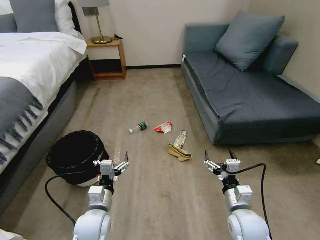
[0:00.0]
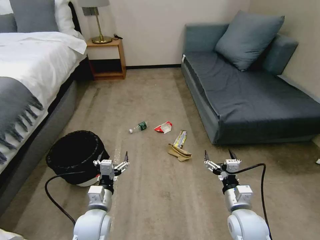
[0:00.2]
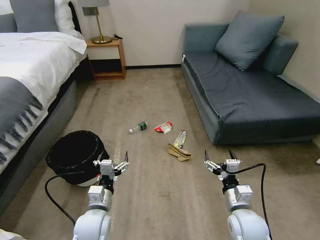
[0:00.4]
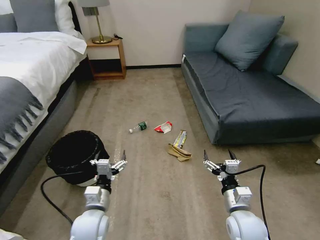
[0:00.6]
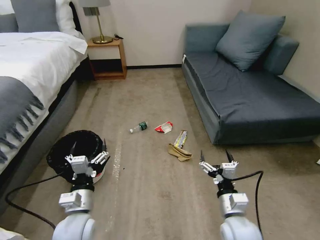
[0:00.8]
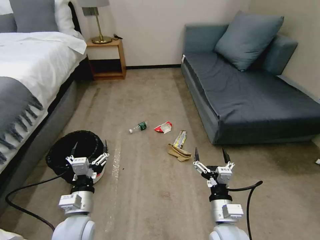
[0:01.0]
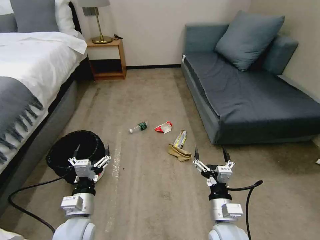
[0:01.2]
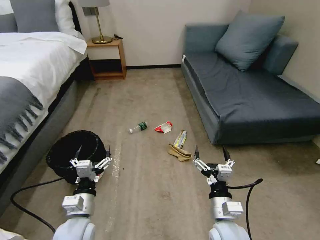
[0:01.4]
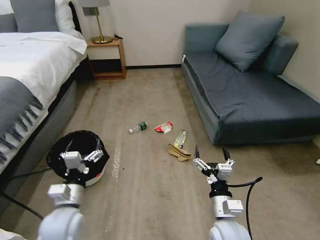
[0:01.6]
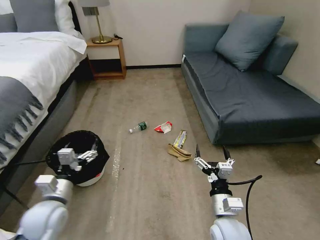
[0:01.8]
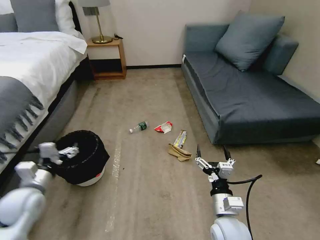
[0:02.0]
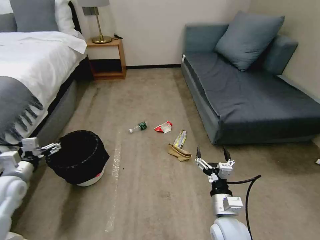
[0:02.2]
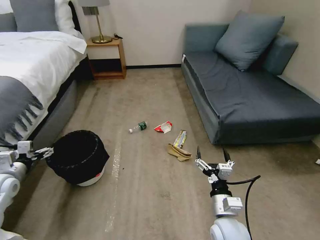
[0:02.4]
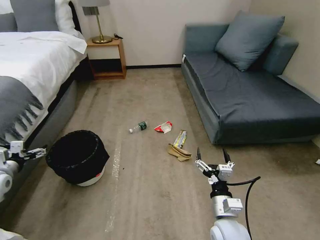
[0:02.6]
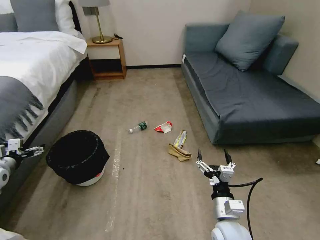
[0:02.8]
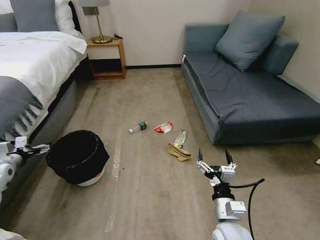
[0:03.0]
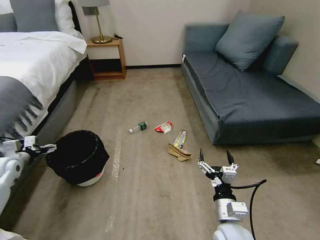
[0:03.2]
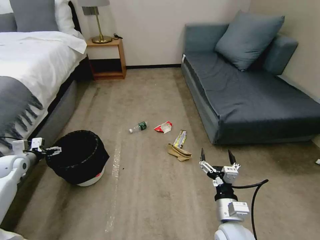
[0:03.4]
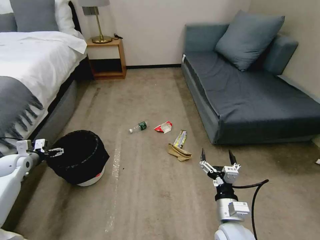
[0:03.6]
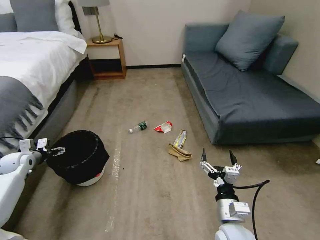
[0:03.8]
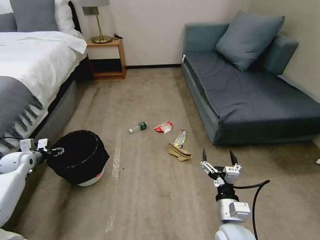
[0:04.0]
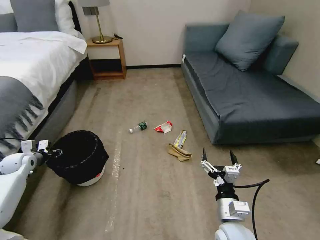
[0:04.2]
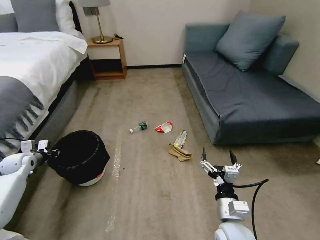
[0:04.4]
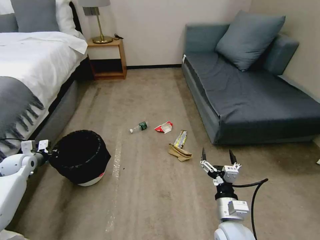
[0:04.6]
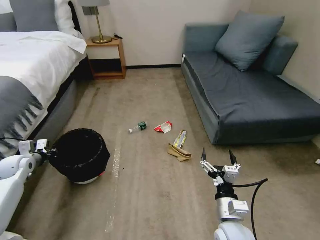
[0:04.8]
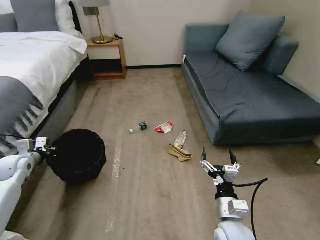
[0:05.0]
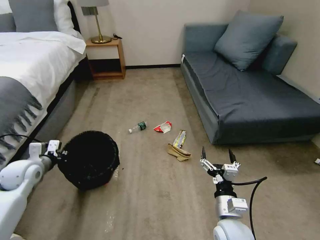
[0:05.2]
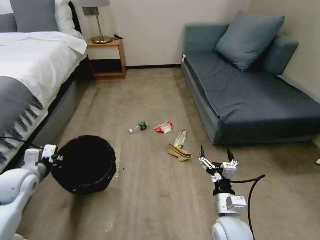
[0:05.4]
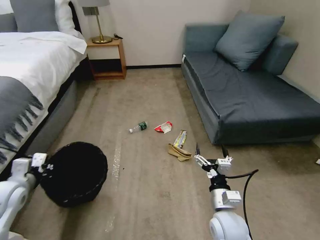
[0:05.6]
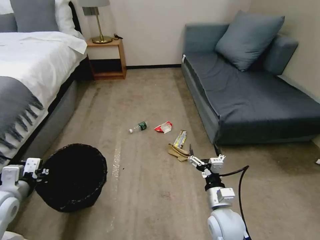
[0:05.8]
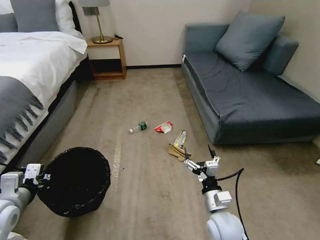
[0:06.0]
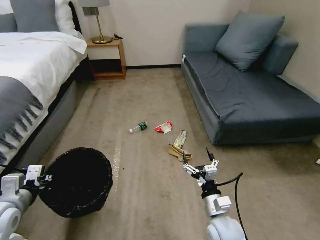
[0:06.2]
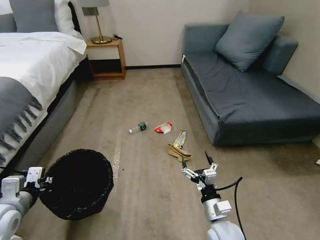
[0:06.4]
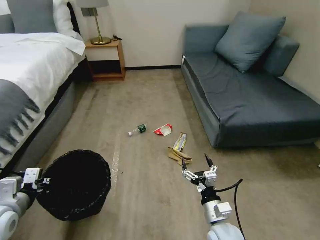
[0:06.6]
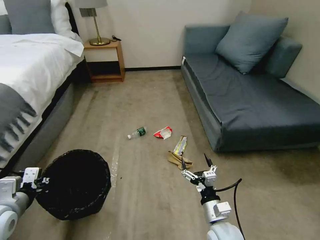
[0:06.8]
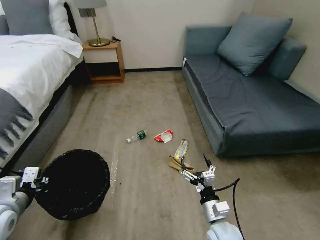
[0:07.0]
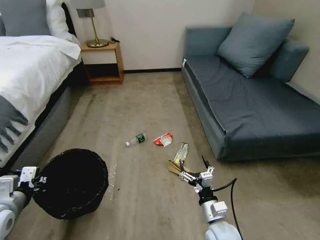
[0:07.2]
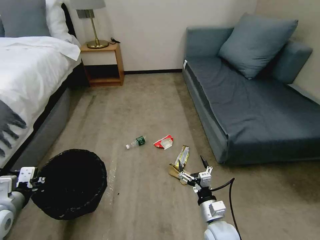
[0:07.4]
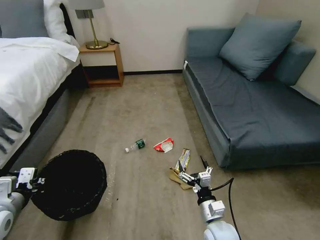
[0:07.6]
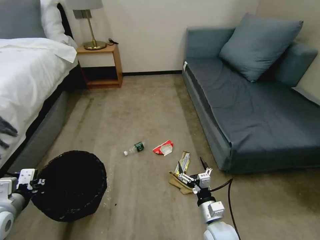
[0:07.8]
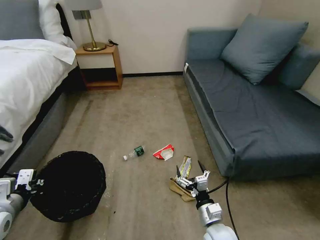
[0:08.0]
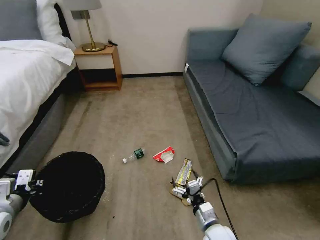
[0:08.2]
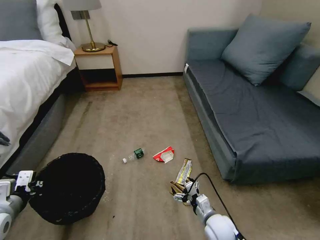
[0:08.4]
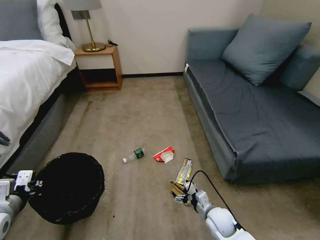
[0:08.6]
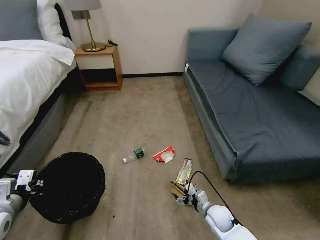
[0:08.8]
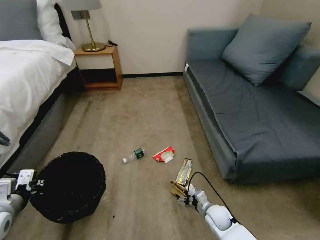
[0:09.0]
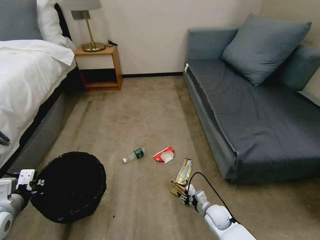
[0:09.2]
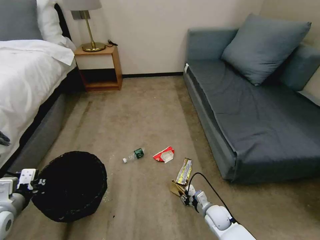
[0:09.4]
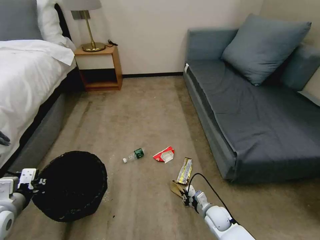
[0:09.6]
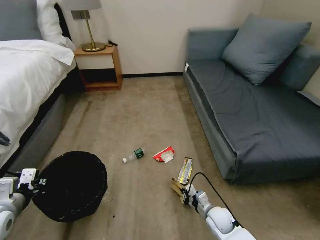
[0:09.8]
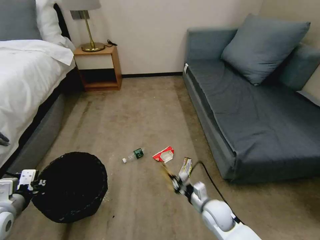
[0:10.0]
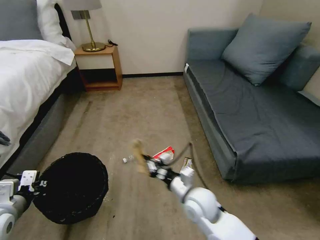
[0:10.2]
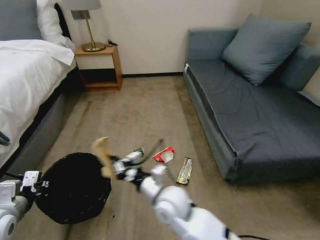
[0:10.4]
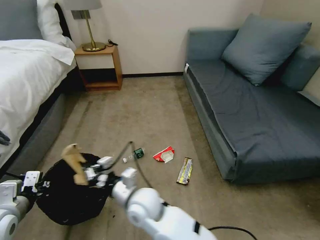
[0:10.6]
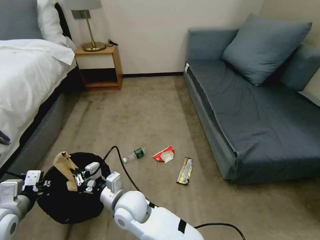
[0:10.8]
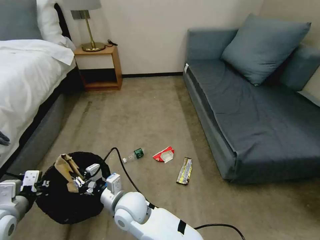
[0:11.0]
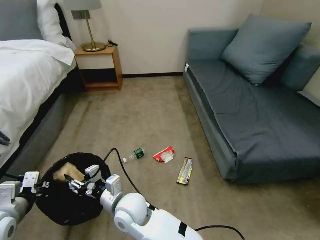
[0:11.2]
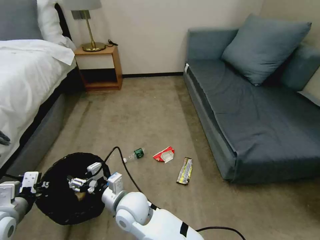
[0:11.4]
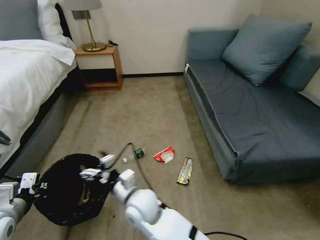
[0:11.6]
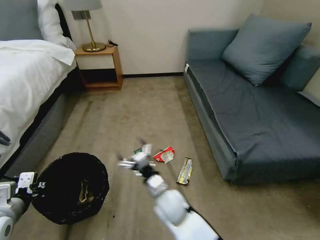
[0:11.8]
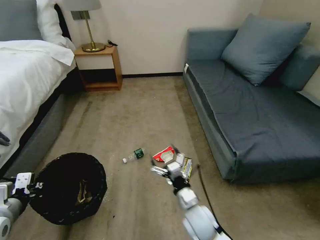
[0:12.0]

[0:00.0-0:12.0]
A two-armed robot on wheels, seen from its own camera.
Task of the whole recording: Pick up the trash bin, then pick up the garbage on the floor and place it into the trash bin.
0:01.6 to 0:03.0: The left gripper goes some 30 cm to the left and forward.
0:03.0 to 0:04.4: The left gripper goes roughly 5 cm forward, and closes up.
0:04.4 to 0:06.0: The left gripper shifts some 25 cm backward, to the right and upward.
0:07.6 to 0:09.0: The right gripper goes approximately 15 cm downward and forward.
0:09.0 to 0:10.4: The right gripper goes about 30 cm upward and to the left, and closes its fingers.
0:10.4 to 0:12.0: The right gripper travels to the right and downward by about 15 cm, and opens.

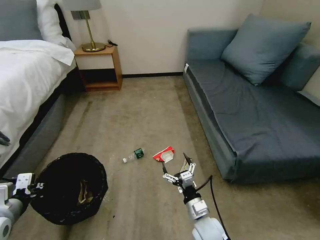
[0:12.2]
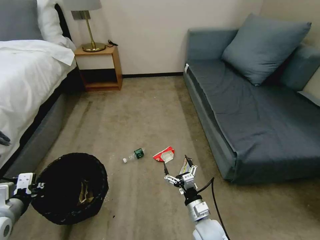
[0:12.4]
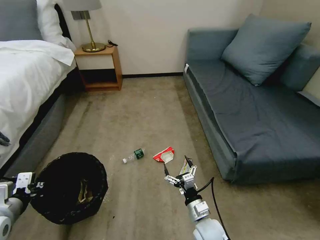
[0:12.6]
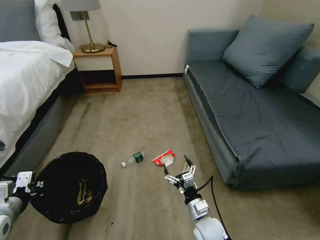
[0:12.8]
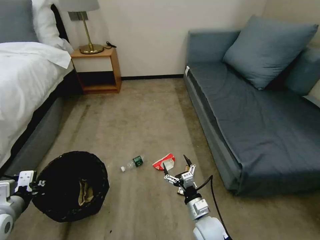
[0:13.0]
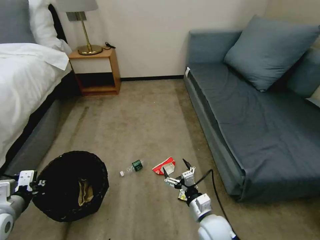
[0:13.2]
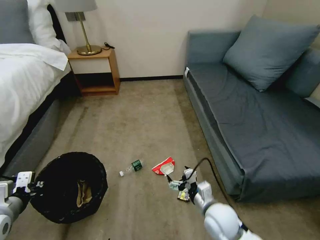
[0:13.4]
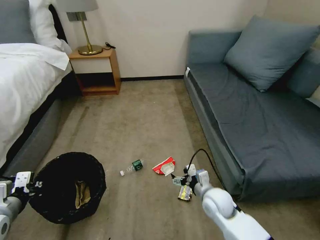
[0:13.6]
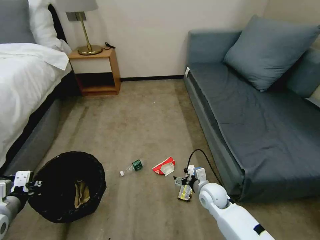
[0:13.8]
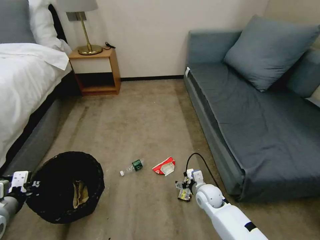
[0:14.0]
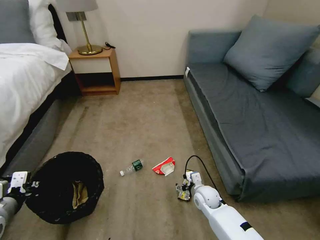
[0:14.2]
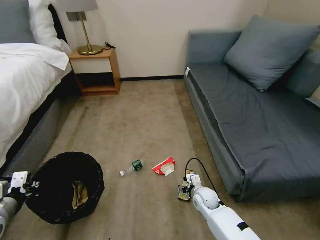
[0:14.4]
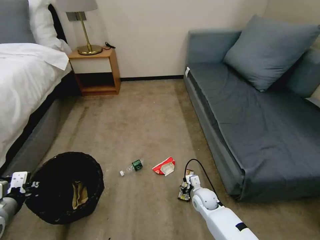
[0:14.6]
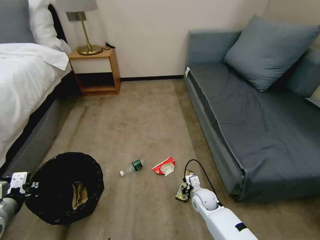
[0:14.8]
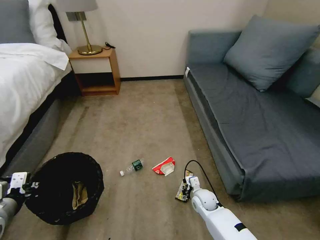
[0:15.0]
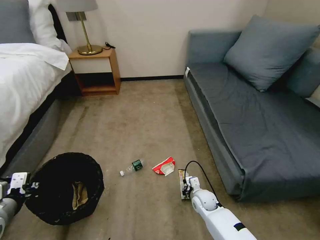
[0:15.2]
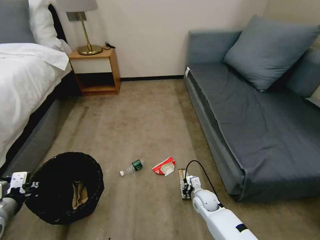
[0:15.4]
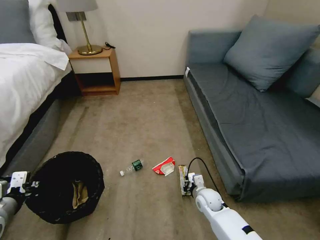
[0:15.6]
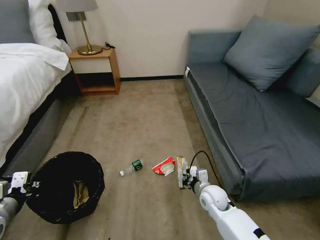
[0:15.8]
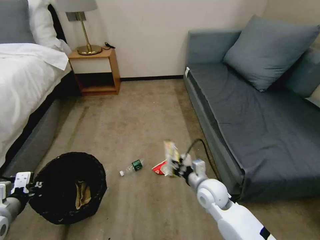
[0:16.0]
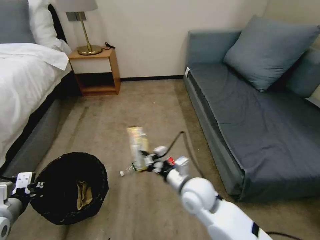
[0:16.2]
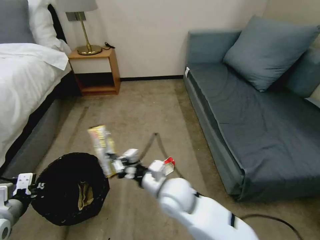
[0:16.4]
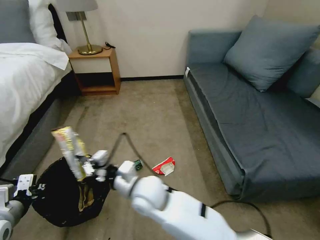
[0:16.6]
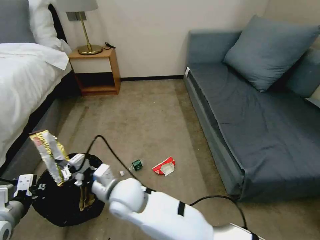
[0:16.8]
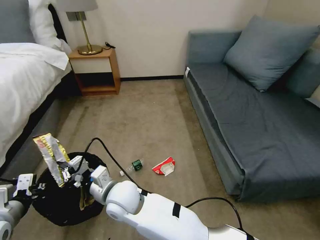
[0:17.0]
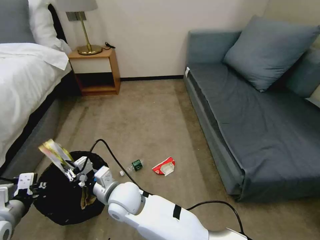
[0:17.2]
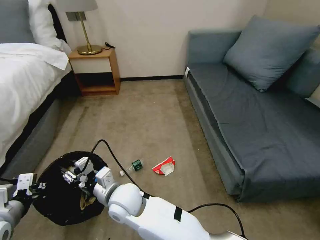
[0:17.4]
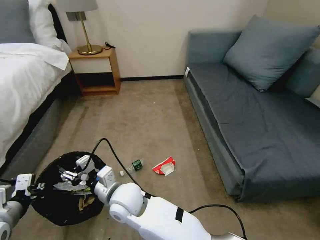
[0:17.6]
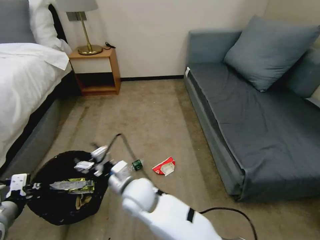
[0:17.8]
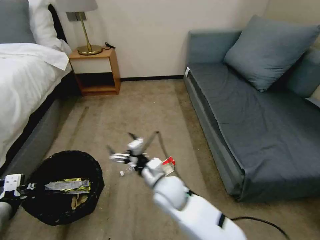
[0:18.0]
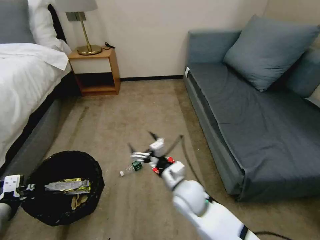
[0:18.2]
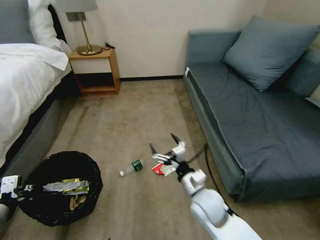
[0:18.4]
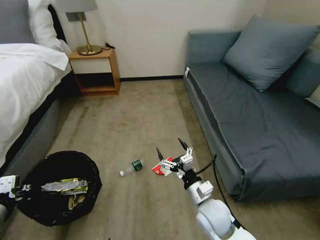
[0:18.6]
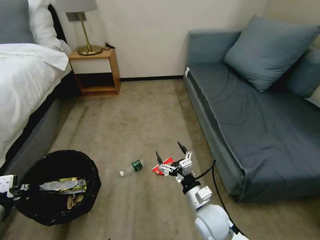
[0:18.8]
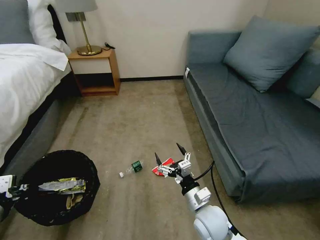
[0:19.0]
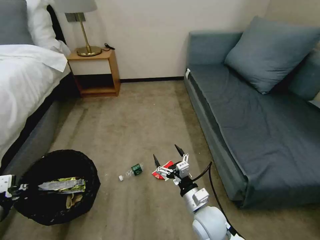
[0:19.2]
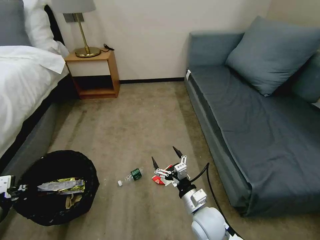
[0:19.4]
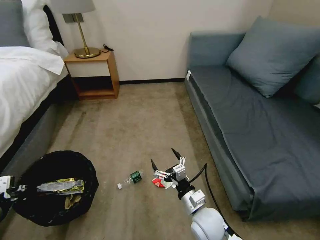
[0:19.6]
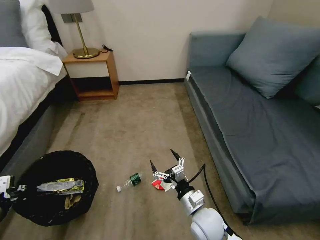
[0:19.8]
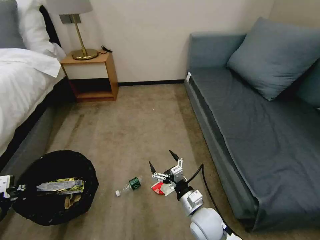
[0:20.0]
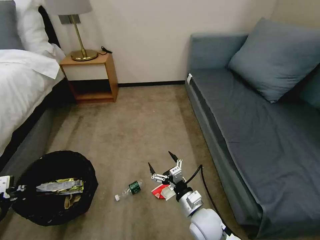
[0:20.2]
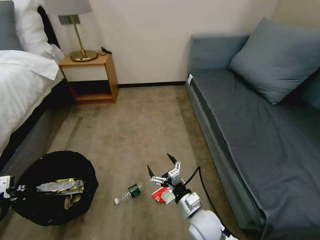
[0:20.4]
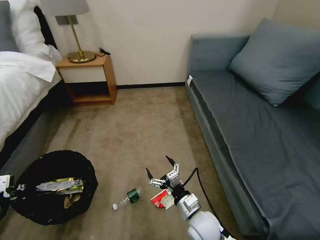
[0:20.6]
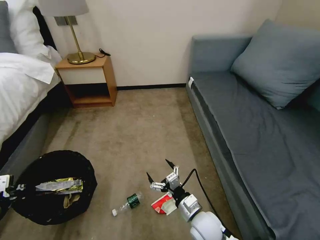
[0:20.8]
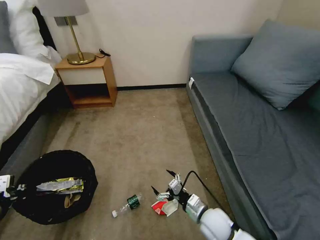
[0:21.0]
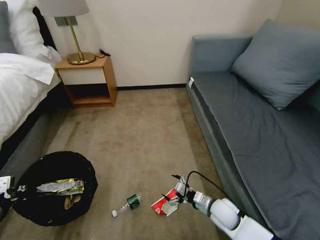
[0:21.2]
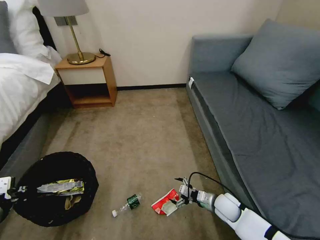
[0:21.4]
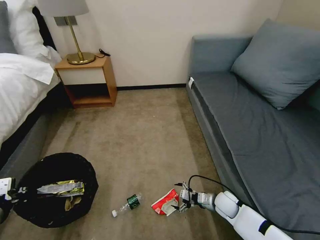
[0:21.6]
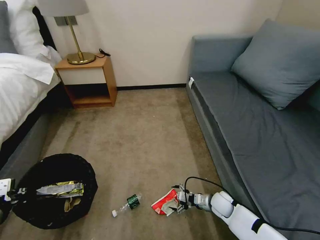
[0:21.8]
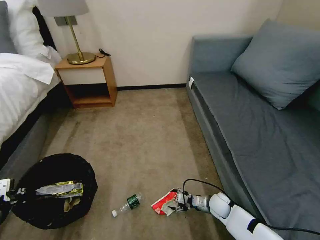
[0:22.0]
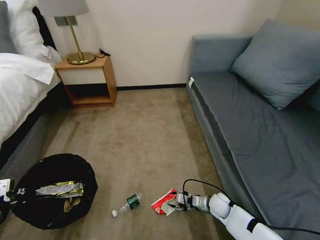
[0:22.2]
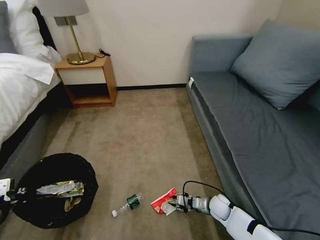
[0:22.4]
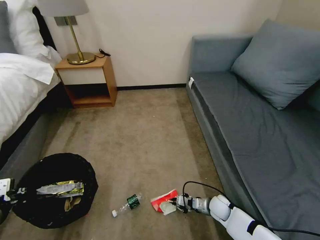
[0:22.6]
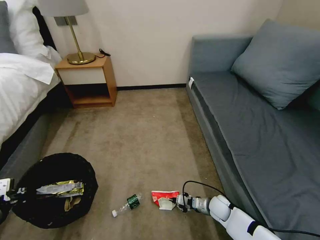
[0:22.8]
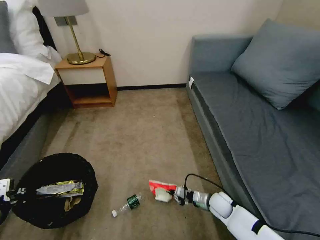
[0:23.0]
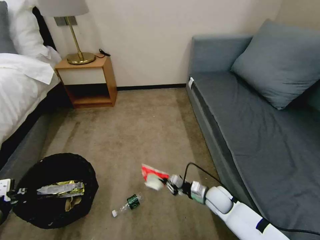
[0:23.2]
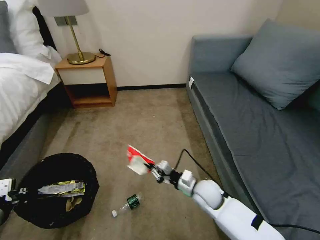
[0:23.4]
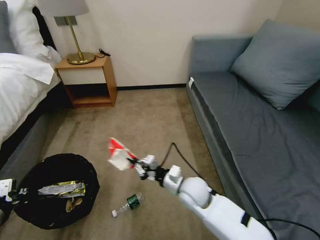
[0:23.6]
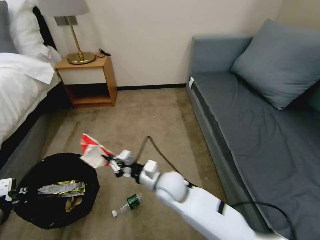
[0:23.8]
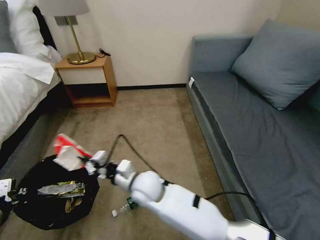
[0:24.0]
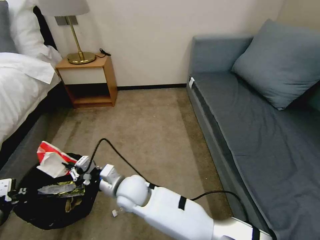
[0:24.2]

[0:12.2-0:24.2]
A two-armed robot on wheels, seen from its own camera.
Task of the whole recording: Pick up the trash bin, then pick up the garbage on the floor and place it into the trash bin.
0:12.2 to 0:13.8: The right gripper heads forward, covering approximately 10 cm.
0:13.8 to 0:15.2: The right gripper is displaced downward by some 10 cm, and closes up.
0:15.2 to 0:16.6: The right gripper heads upward and to the left, covering approximately 35 cm.
0:16.6 to 0:18.2: The right gripper heads to the right, covering roughly 15 cm, and opens up.
0:18.2 to 0:19.8: The right gripper goes about 10 cm downward, backward and to the right.
0:19.8 to 0:21.2: The right gripper is displaced to the right, downward and forward by about 15 cm.
0:21.2 to 0:22.6: The right gripper moves downward, about 10 cm, and closes.
0:22.6 to 0:24.2: The right gripper is displaced to the left and upward by some 40 cm.
